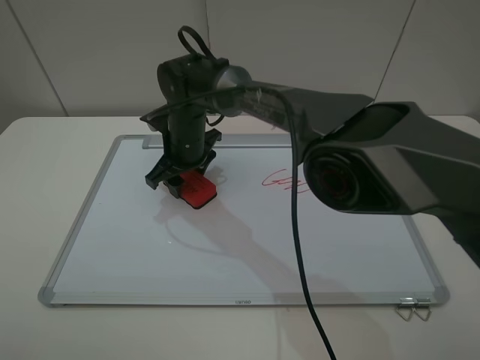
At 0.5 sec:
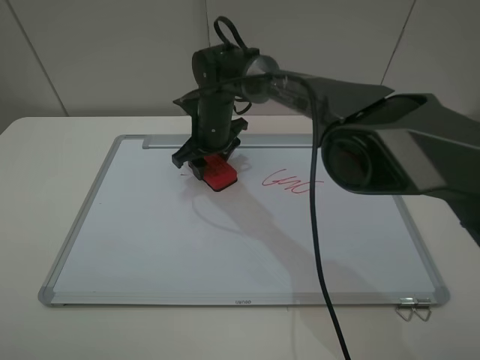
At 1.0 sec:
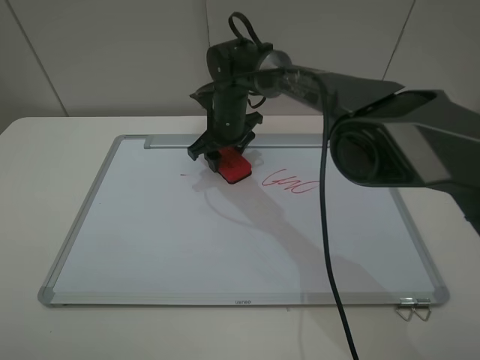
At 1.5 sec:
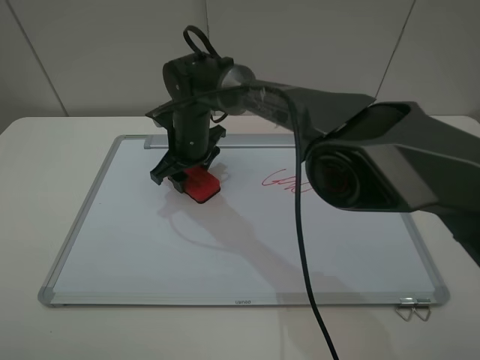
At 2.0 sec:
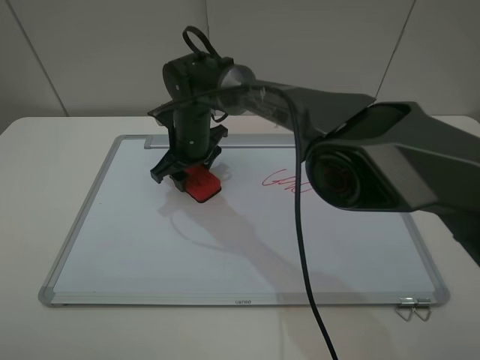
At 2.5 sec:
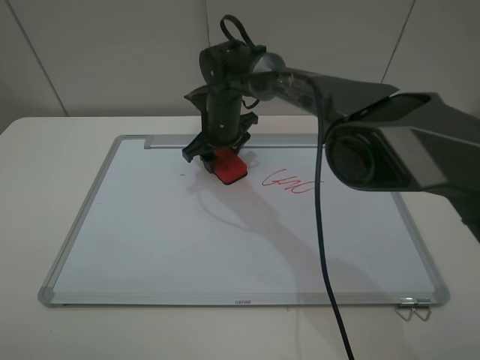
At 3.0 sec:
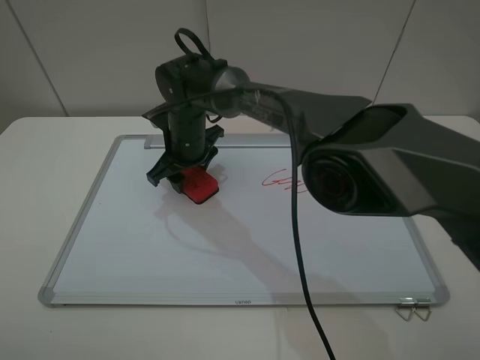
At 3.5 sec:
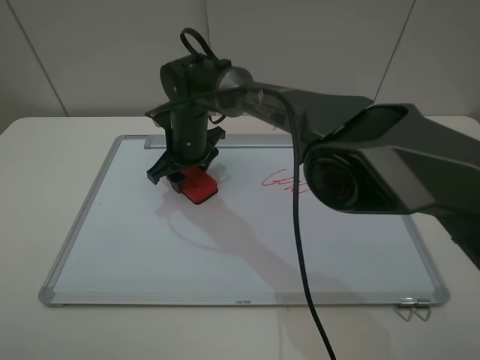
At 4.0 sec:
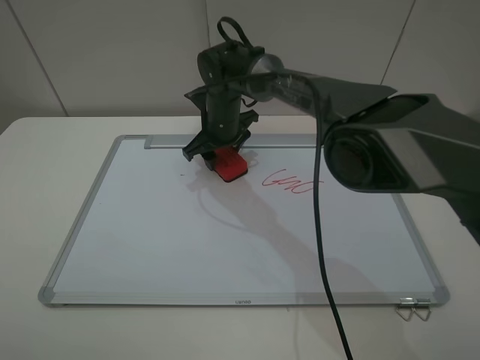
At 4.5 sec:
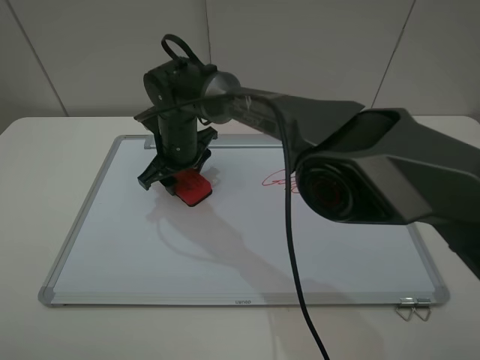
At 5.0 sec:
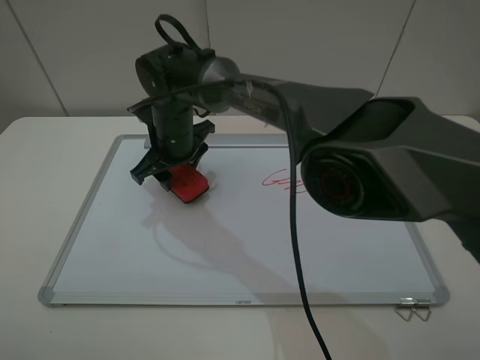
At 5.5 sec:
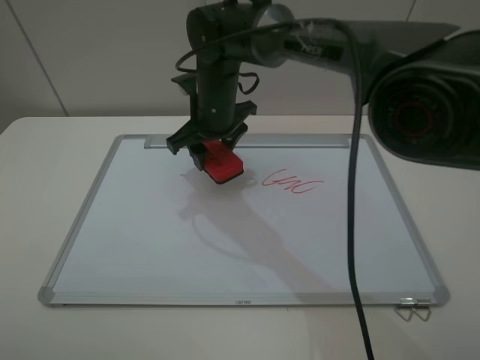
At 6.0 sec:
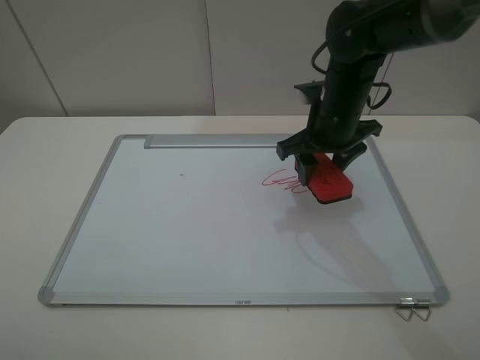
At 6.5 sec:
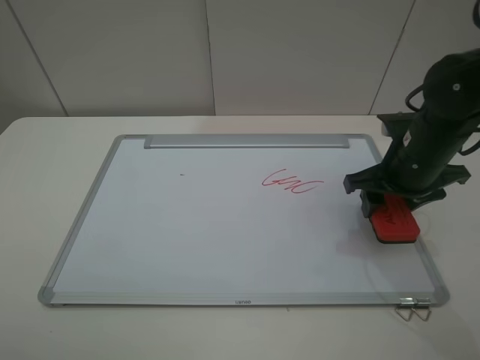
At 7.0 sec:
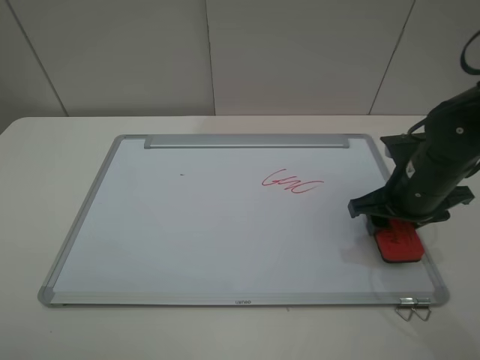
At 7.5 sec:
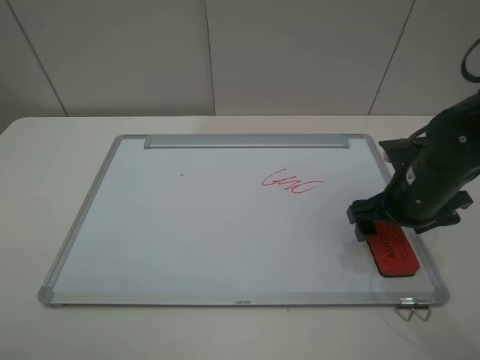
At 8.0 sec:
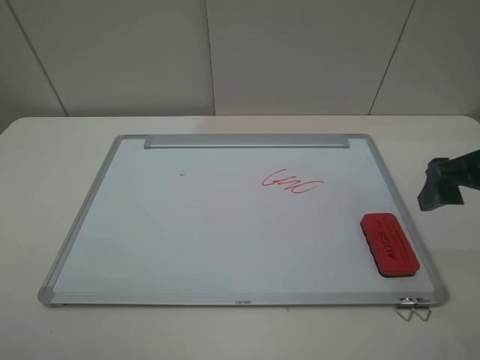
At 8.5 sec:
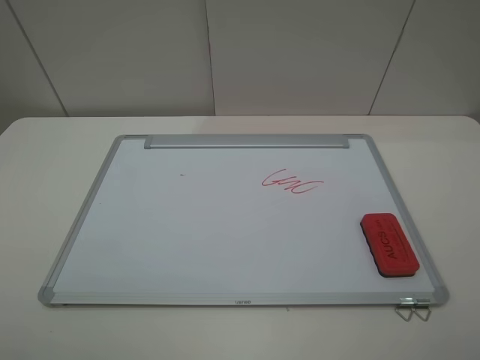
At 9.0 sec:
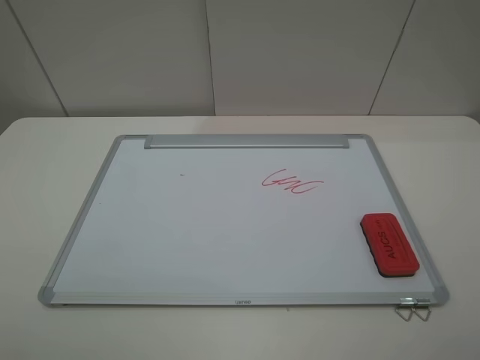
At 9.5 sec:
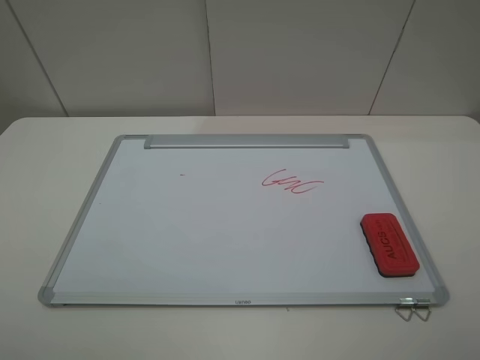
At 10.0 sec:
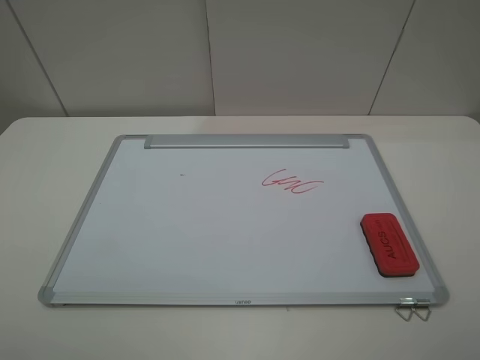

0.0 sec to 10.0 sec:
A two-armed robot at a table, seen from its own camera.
Step, 0.0 sec to 5.0 sec: Grasp the eraser and wipe the blackboard with the right gripper.
Step, 5.5 sec to 7.5 sec: Place the eraser with the right gripper.
2.0 sec to 4.0 sec: The right gripper changes place by approximately 5 cm.
4.0 sec to 6.0 sec: The right gripper moves to the right, backward and upward, roughly 20 cm.
6.0 sec to 8.0 sec: The right gripper shifts some 20 cm backward, to the right and upward, and opens up.
8.0 sec to 10.0 sec: The right gripper is displaced backward by roughly 20 cm.

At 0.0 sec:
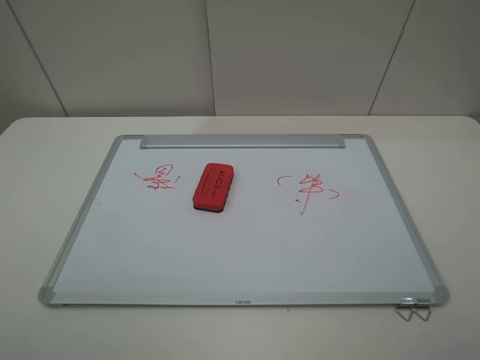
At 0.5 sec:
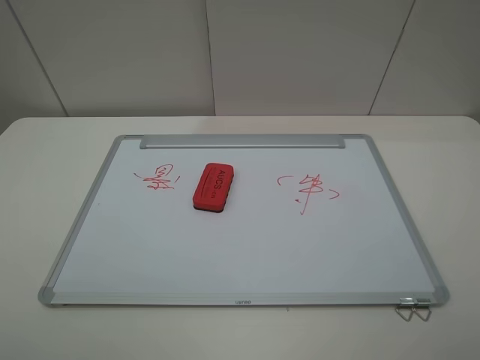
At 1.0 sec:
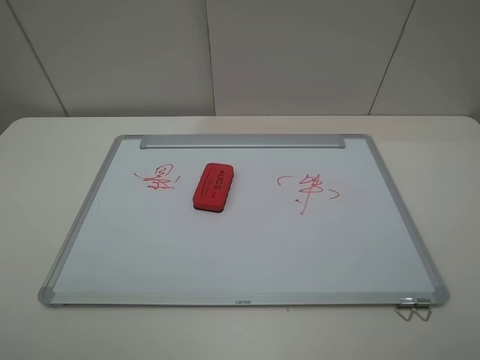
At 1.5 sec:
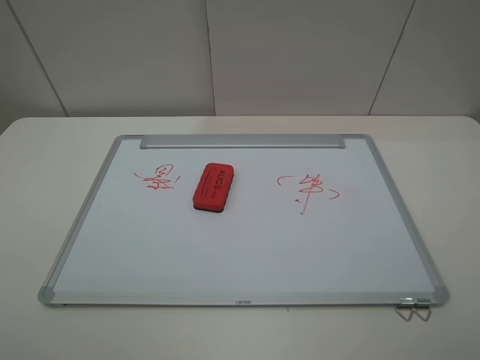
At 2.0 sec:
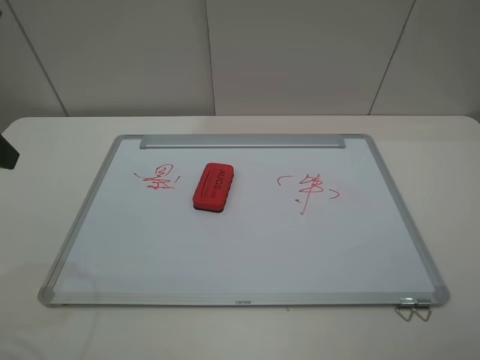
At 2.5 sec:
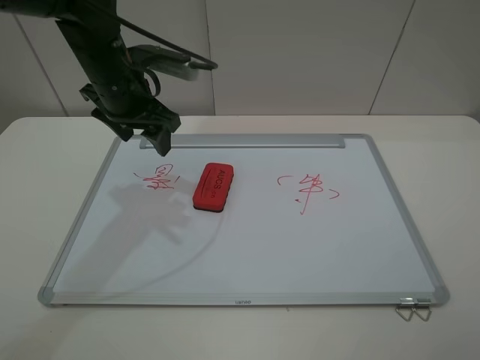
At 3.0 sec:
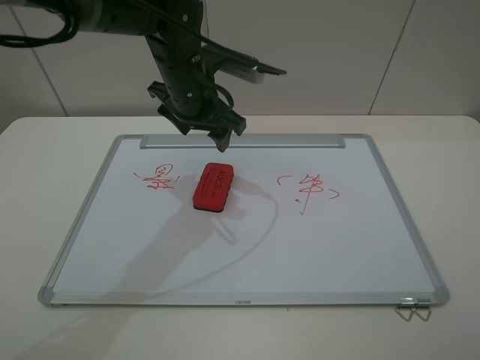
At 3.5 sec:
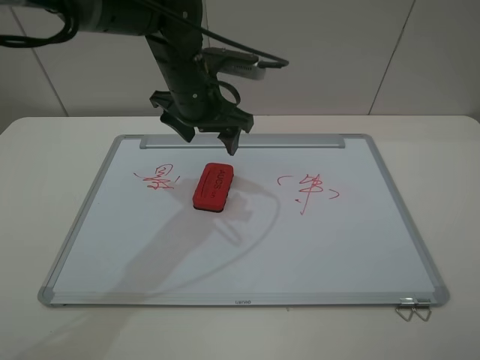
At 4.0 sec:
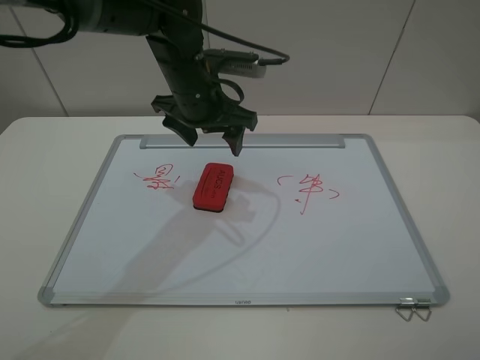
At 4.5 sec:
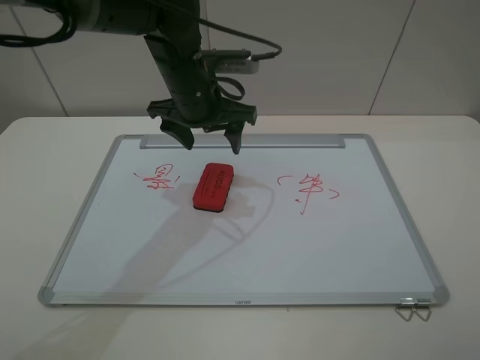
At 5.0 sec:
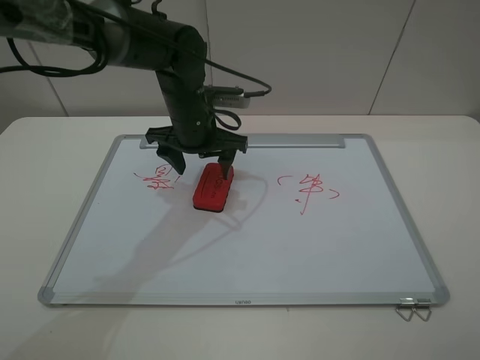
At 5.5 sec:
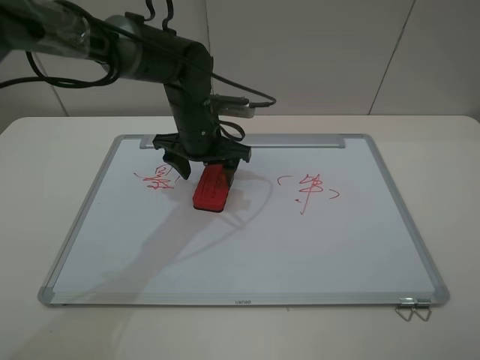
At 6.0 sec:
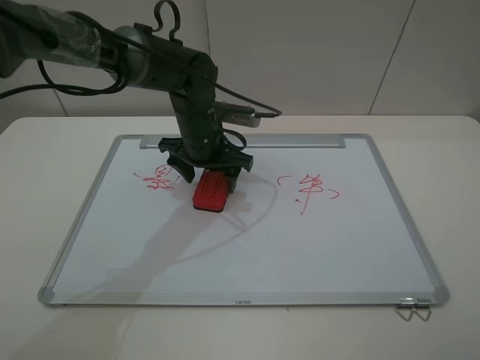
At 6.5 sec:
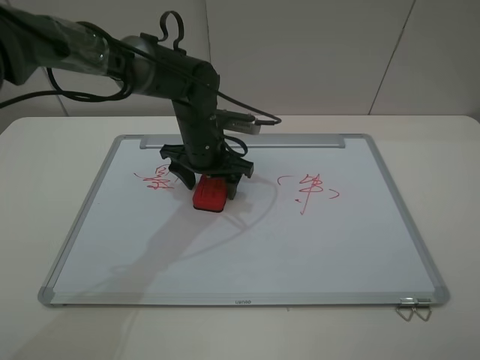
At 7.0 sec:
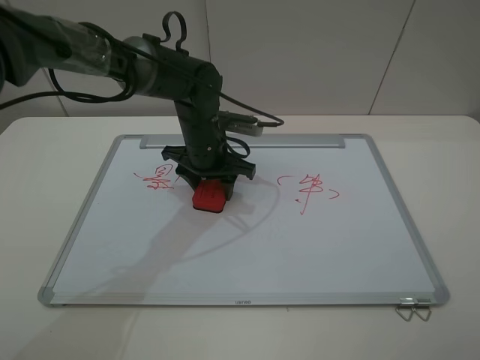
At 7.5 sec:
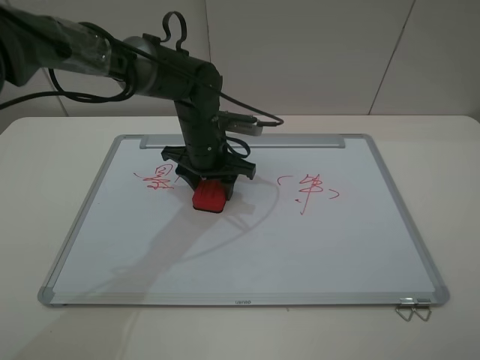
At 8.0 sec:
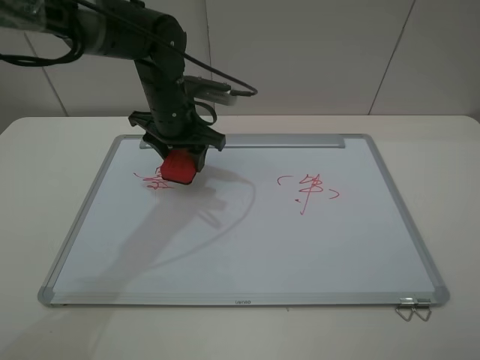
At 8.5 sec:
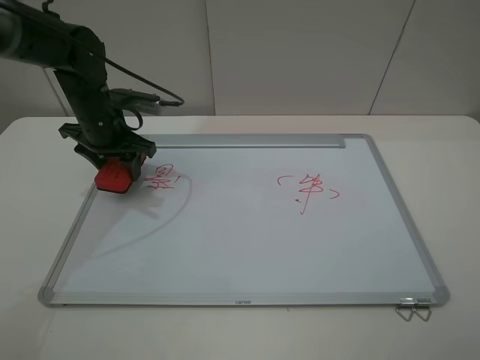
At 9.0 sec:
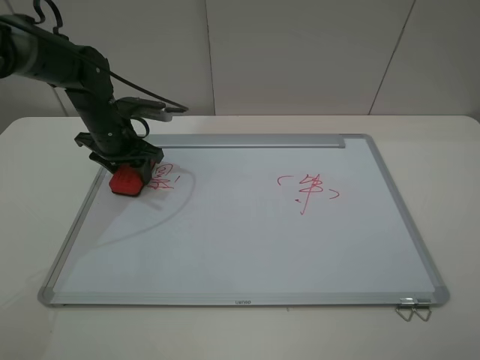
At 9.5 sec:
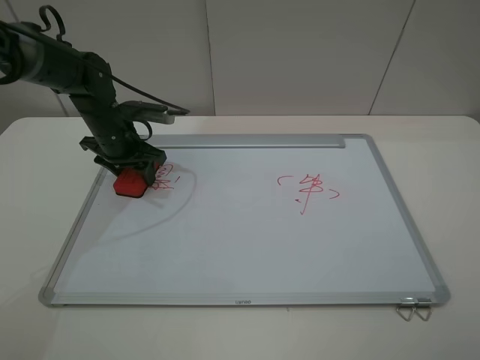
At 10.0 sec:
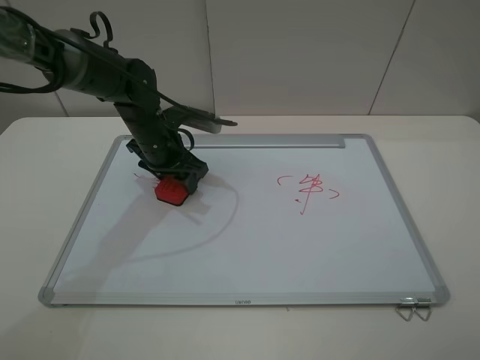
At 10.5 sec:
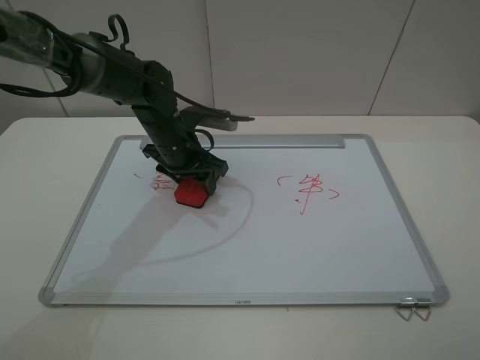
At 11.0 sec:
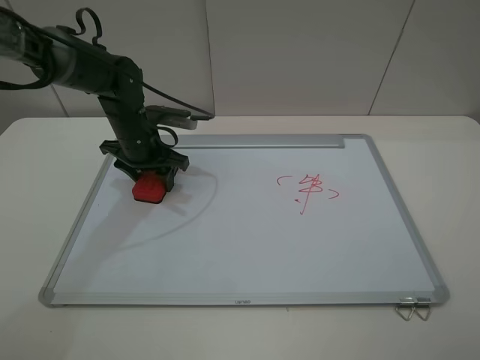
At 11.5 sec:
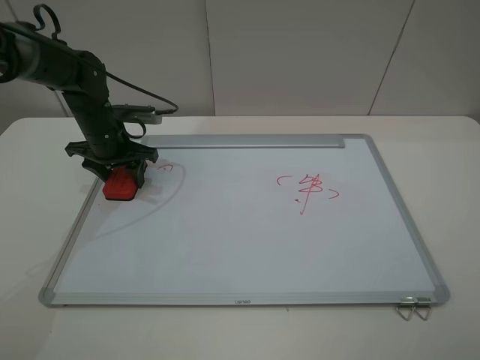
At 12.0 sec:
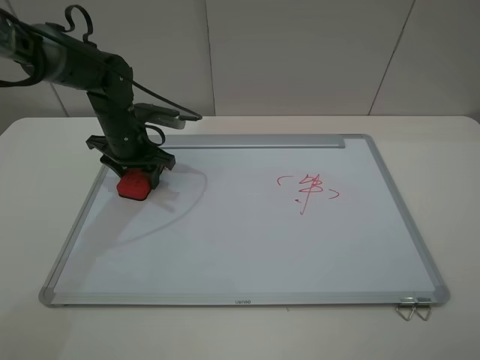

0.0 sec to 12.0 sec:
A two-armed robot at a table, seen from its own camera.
Step, 0.0 sec to 6.5 sec: Grasp the eraser with the left gripper.
2.0 sec to 4.0 sec: The left gripper travels to the right and forward by approximately 30 cm, and opens its fingers.
4.0 sec to 6.0 sec: The left gripper is displaced downward by about 10 cm.
6.0 sec to 8.0 sec: The left gripper is displaced to the left by about 5 cm, and closes up.
8.0 sec to 10.0 sec: The left gripper heads downward, covering roughly 5 cm, and moves about 10 cm to the left and comes back.
10.0 sec to 12.0 sec: The left gripper heads to the left, covering roughly 5 cm.

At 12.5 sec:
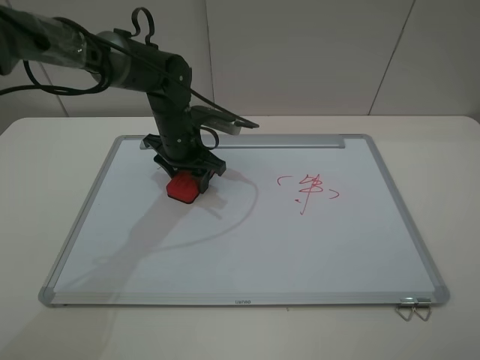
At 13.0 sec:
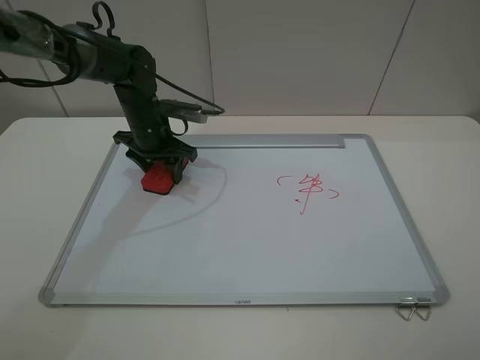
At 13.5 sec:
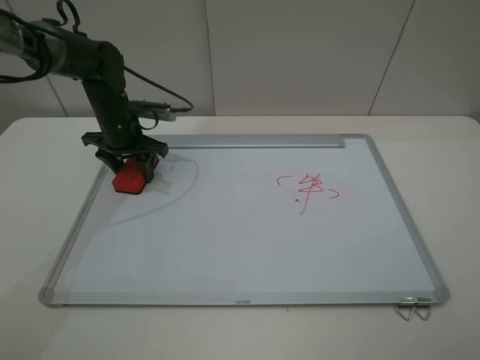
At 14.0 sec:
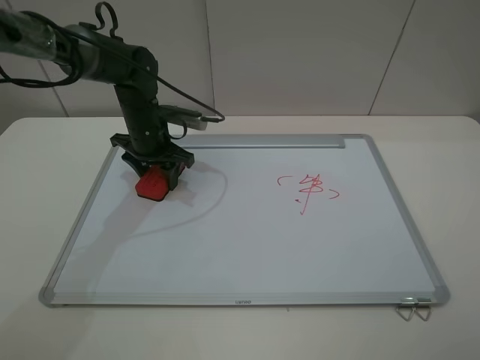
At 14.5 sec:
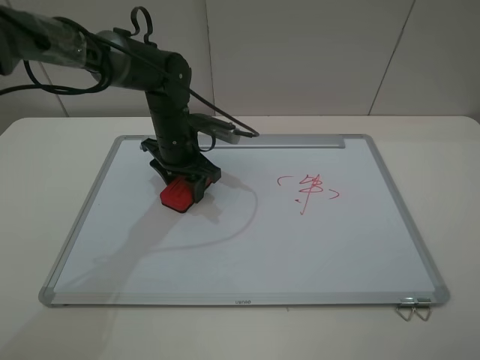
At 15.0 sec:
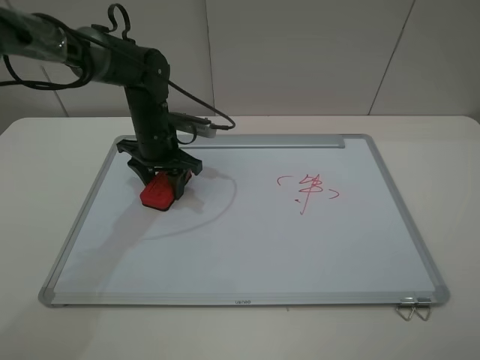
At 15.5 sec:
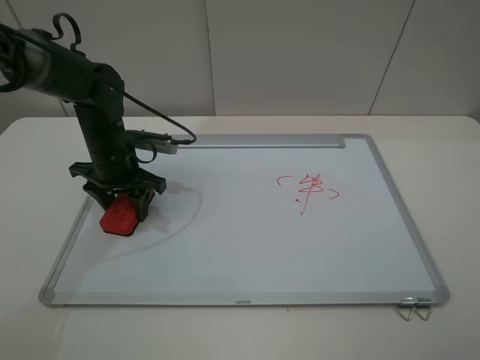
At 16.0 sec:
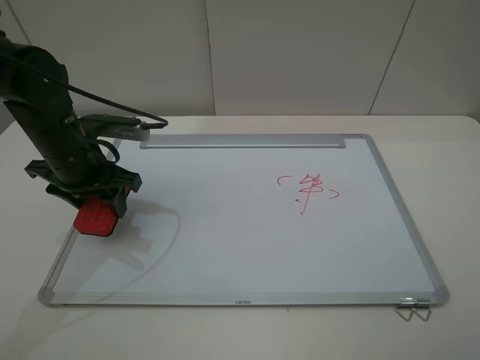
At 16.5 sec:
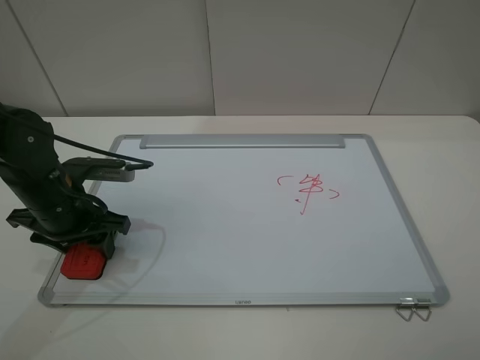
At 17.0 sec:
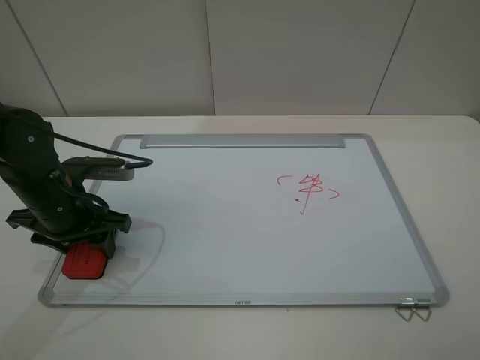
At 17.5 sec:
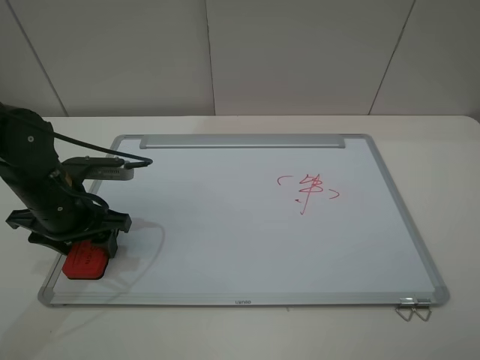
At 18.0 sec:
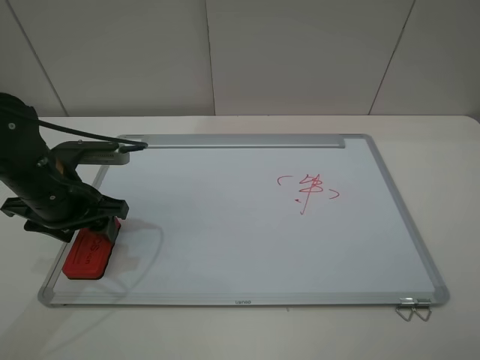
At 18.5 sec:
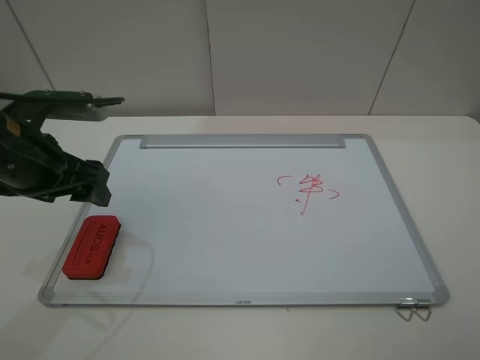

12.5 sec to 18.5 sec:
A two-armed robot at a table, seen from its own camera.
Step, 12.5 sec to 15.5 sec: Grasp the eraser and wipe the blackboard with the left gripper.
Step, 16.0 sec to 18.0 sec: Place the eraser with the left gripper.
12.5 sec to 14.5 sec: The left gripper moves approximately 10 cm to the left and comes back.
14.5 sec to 16.5 sec: The left gripper goes about 20 cm backward and to the left.
16.5 sec to 18.5 sec: The left gripper shifts about 10 cm upward, and opens up.
